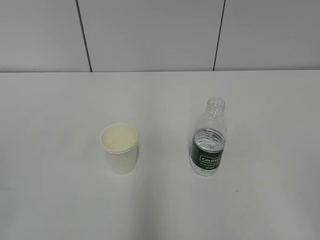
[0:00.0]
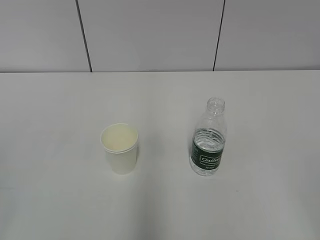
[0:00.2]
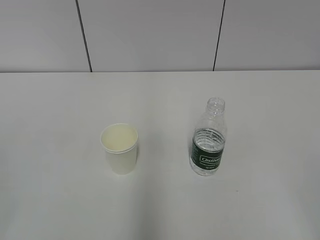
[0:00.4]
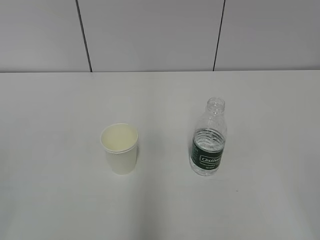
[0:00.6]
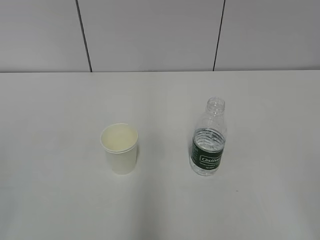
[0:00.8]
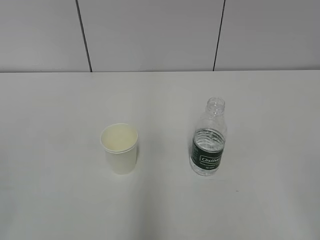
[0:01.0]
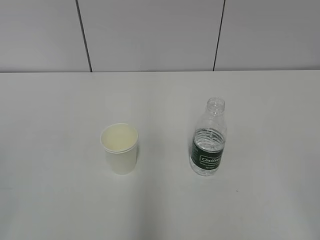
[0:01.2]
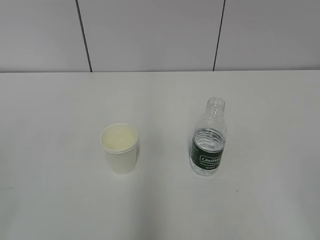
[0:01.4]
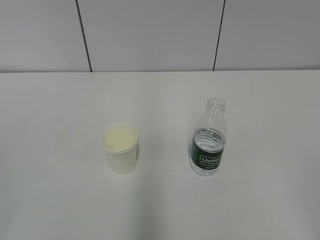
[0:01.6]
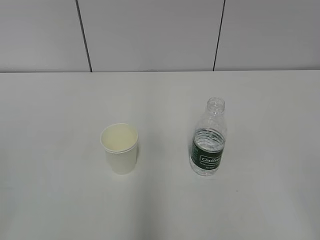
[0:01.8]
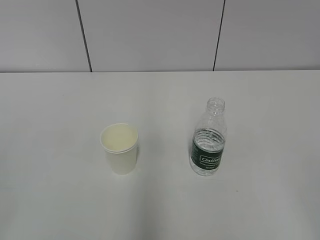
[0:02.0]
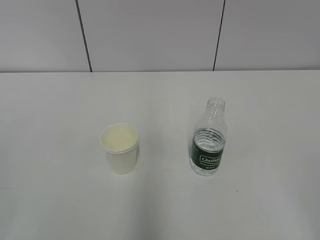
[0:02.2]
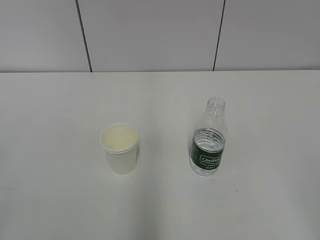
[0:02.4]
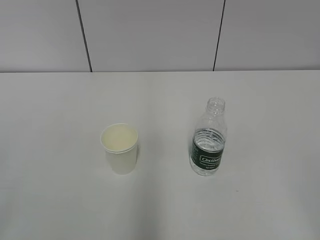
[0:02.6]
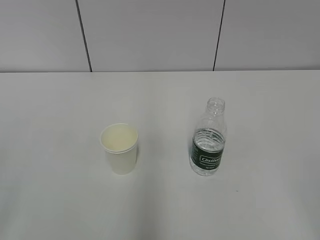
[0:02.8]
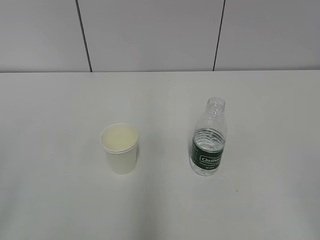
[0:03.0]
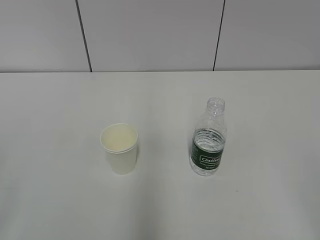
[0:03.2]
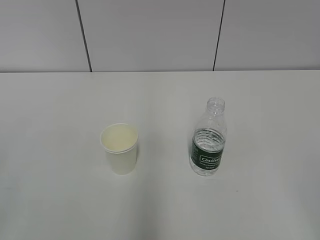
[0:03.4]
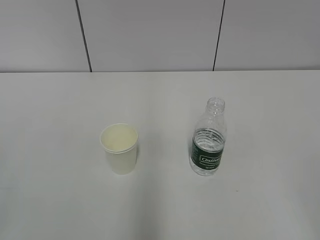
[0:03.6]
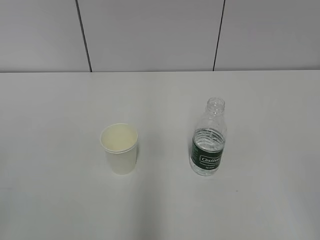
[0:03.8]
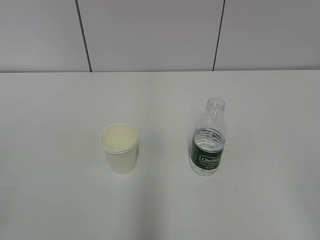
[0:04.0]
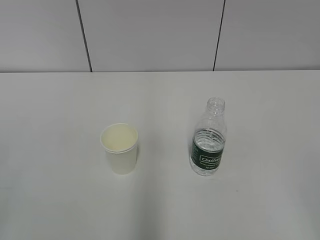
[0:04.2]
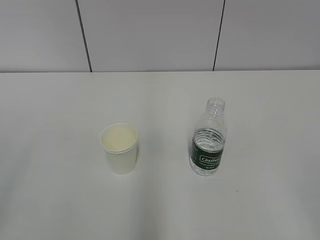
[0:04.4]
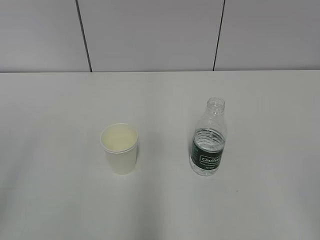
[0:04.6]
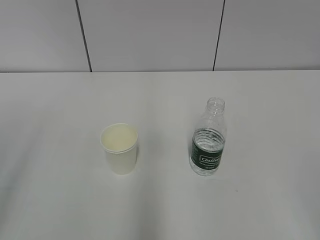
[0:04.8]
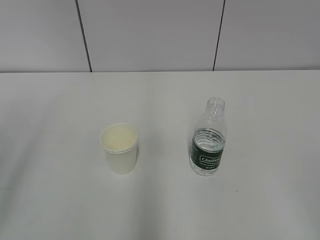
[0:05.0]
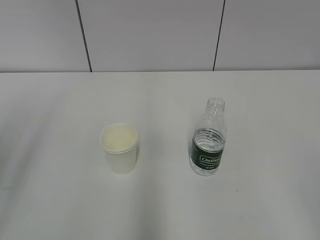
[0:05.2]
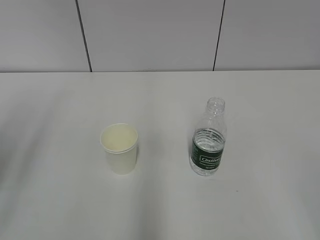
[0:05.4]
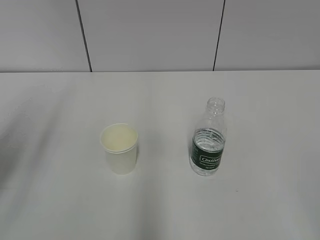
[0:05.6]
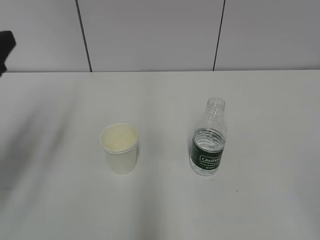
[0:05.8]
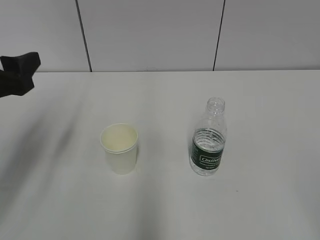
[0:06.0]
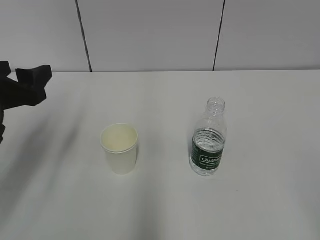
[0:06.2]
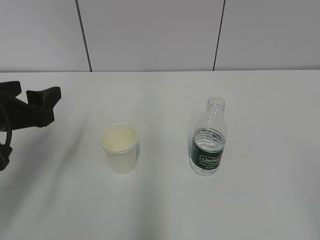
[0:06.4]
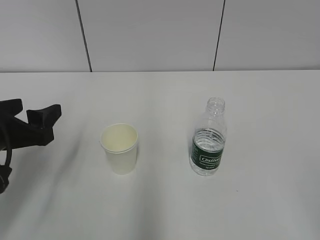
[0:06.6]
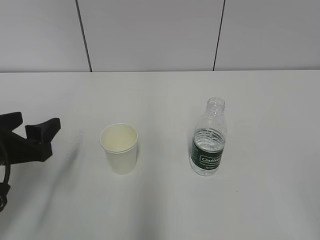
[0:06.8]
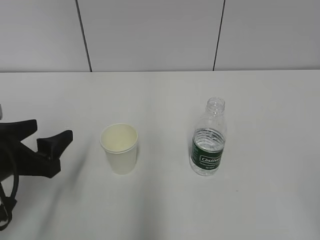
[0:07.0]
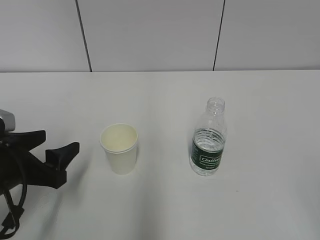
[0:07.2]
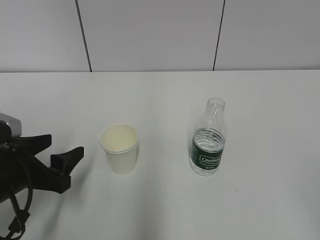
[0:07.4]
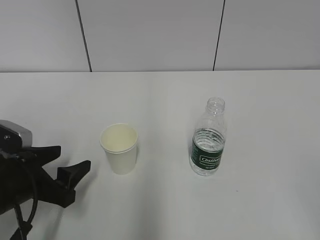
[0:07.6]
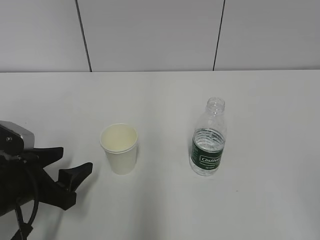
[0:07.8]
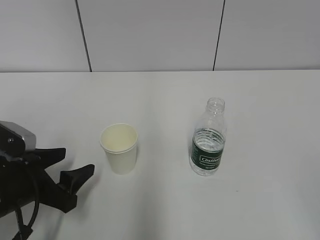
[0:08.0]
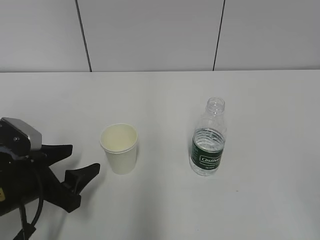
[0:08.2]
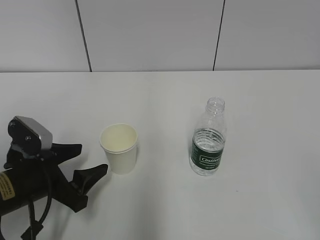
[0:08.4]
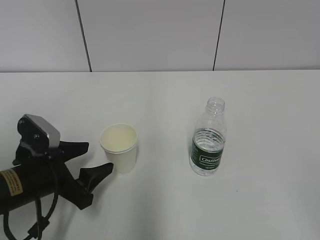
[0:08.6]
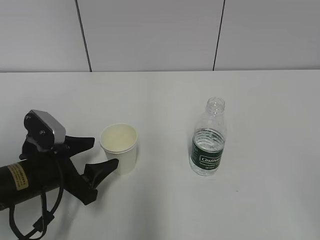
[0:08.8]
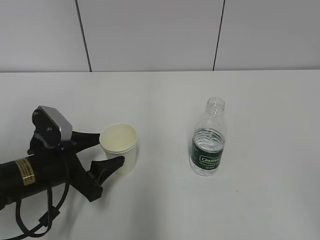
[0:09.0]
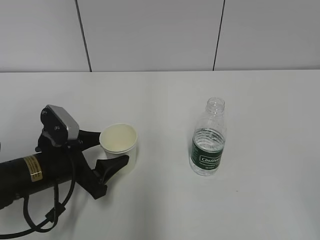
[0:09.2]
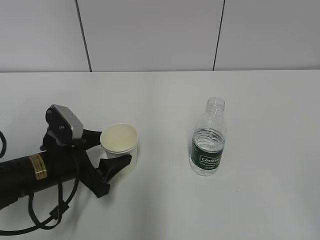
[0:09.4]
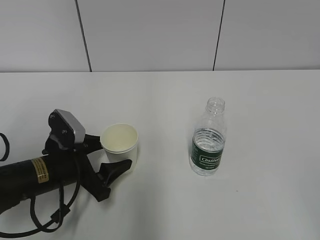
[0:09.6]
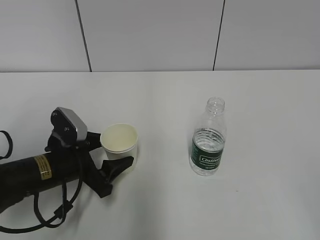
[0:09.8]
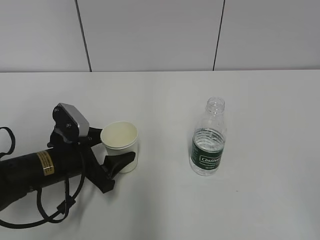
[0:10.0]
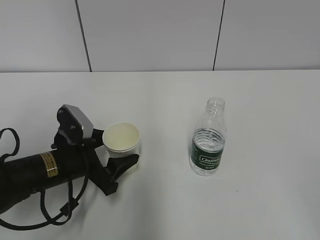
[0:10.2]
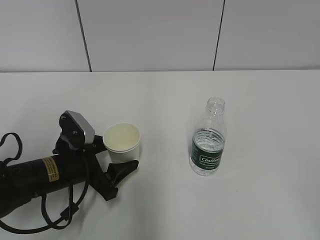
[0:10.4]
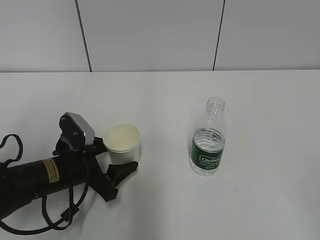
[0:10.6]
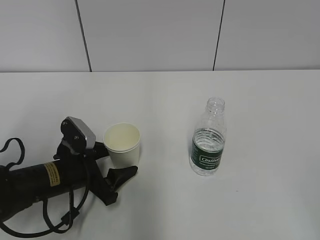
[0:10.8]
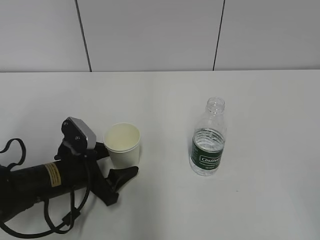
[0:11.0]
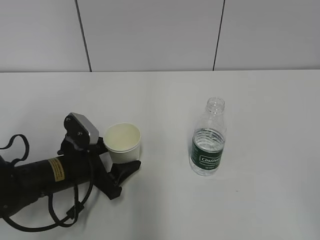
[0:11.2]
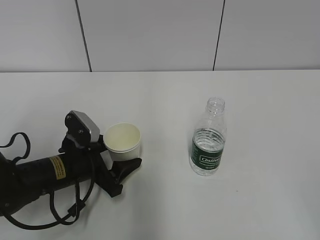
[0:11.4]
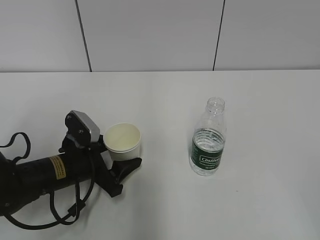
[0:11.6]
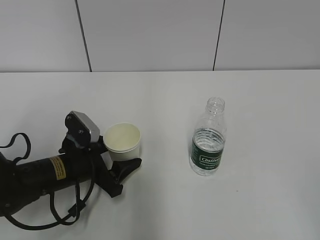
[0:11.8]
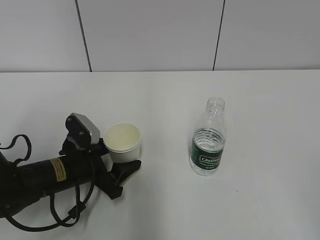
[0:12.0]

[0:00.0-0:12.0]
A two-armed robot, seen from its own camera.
Step, 0:00.0 to 0:10.6: Grab the paper cup with the left hand.
0:04.4 to 0:06.0: The left gripper goes about 25 cm forward.
0:06.0 to 0:07.6: The left gripper heads downward, covering approximately 15 cm.
0:07.6 to 0:09.0: The left gripper moves some 5 cm.
0:09.0 to 0:12.0: The grippers stay close to where they were, moving slightly.

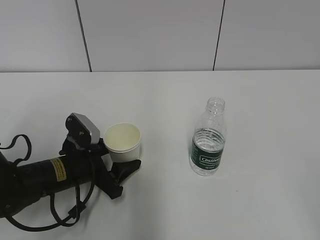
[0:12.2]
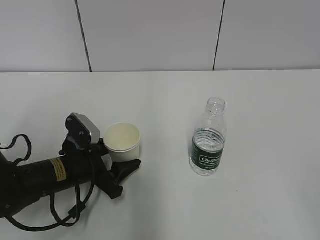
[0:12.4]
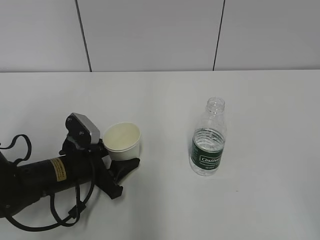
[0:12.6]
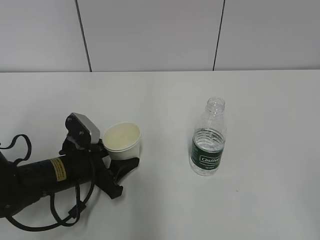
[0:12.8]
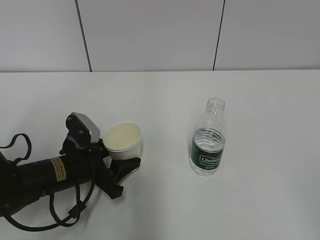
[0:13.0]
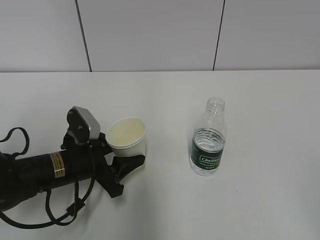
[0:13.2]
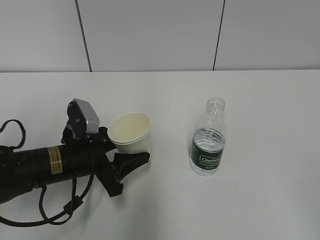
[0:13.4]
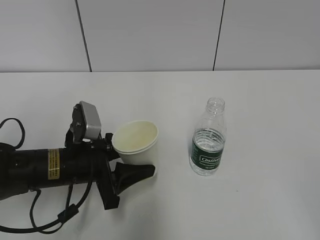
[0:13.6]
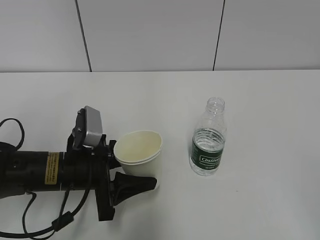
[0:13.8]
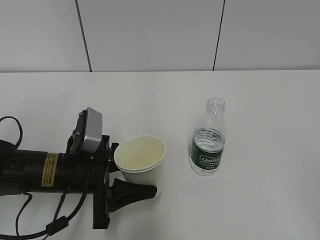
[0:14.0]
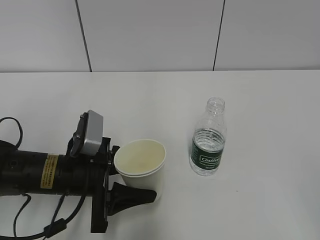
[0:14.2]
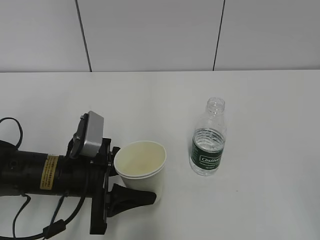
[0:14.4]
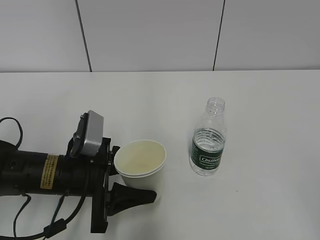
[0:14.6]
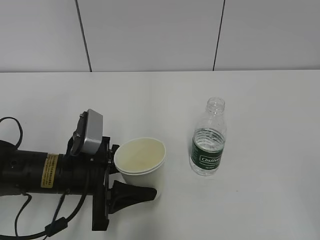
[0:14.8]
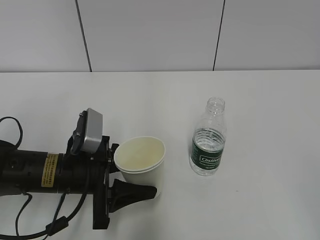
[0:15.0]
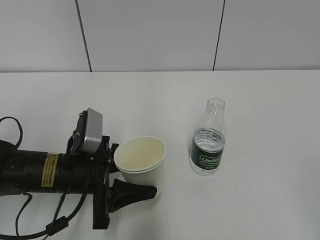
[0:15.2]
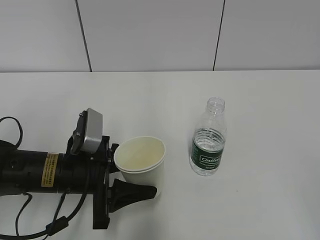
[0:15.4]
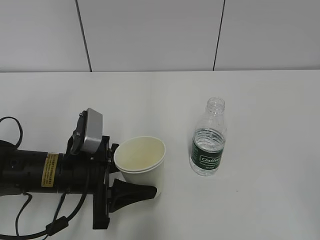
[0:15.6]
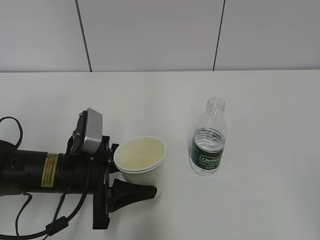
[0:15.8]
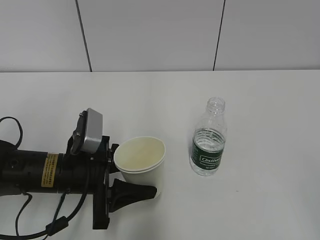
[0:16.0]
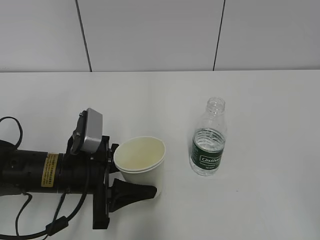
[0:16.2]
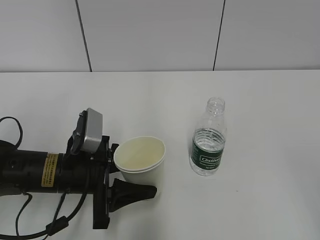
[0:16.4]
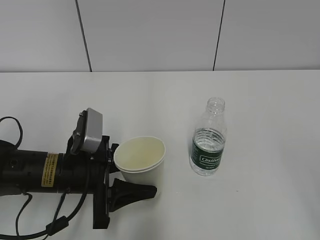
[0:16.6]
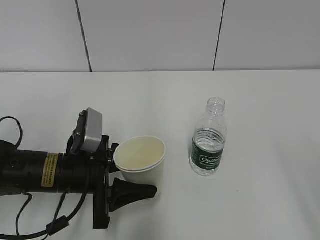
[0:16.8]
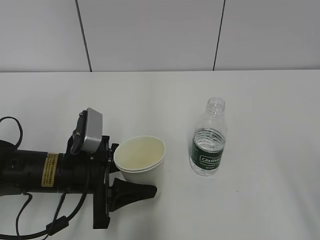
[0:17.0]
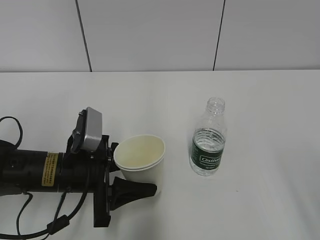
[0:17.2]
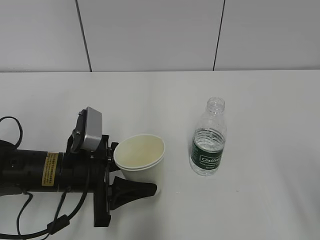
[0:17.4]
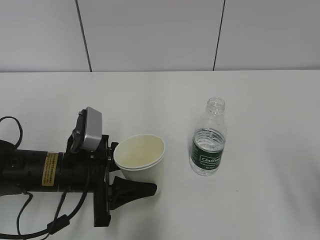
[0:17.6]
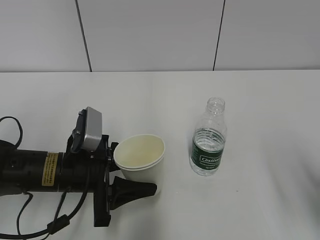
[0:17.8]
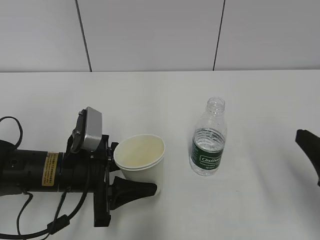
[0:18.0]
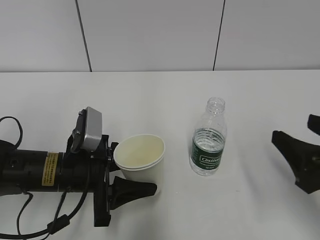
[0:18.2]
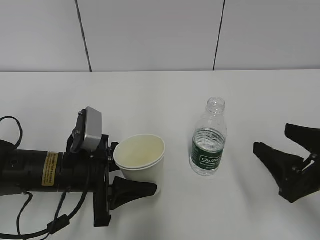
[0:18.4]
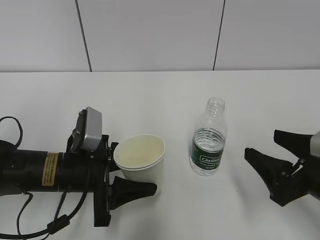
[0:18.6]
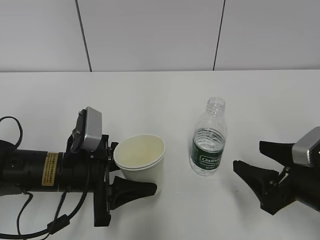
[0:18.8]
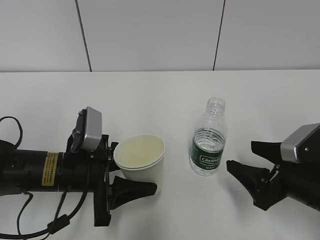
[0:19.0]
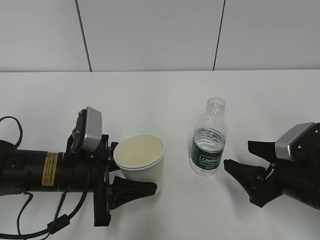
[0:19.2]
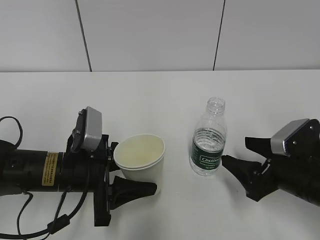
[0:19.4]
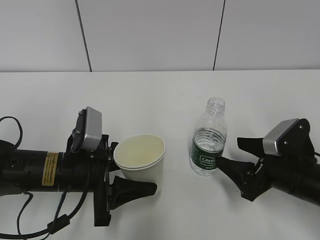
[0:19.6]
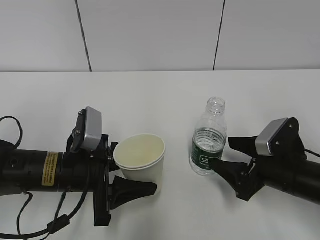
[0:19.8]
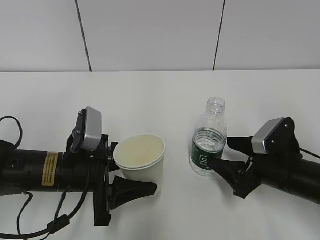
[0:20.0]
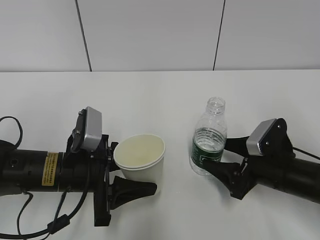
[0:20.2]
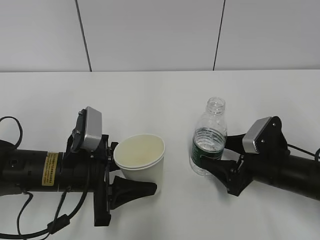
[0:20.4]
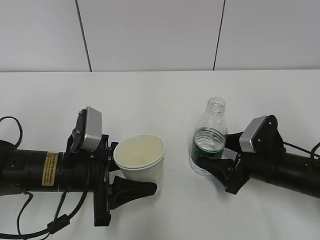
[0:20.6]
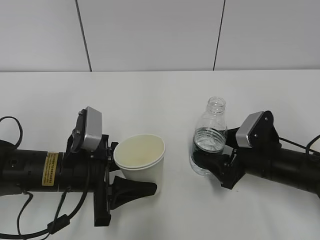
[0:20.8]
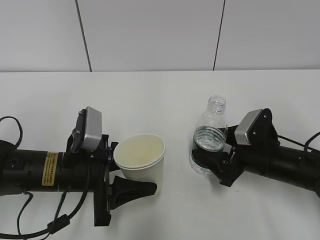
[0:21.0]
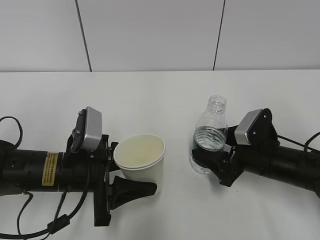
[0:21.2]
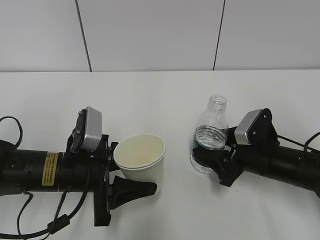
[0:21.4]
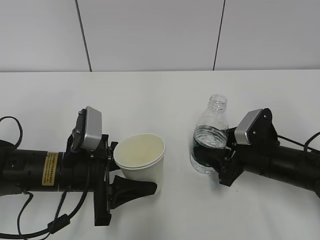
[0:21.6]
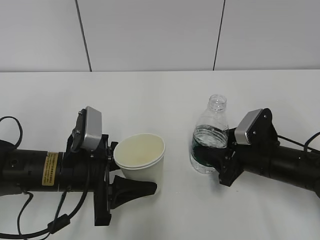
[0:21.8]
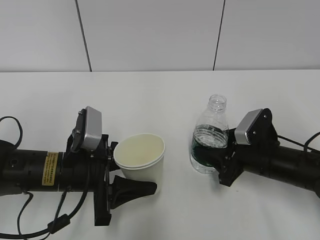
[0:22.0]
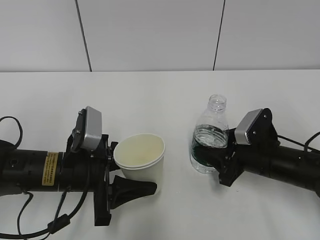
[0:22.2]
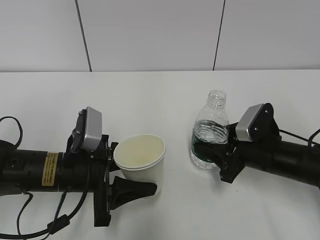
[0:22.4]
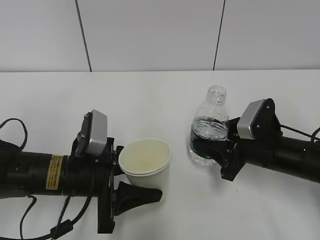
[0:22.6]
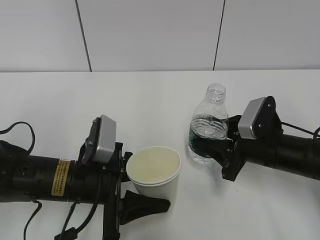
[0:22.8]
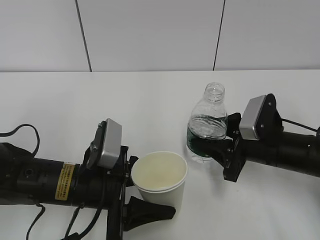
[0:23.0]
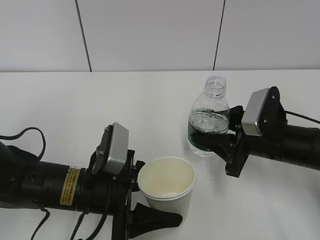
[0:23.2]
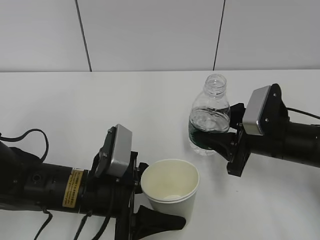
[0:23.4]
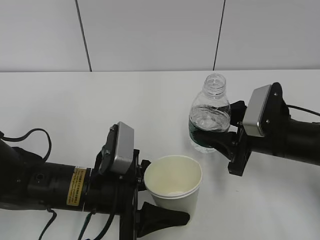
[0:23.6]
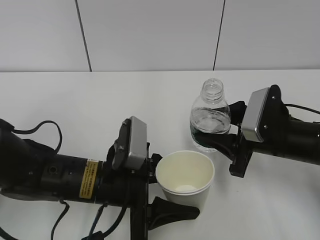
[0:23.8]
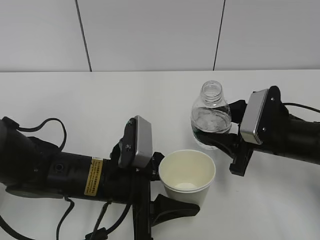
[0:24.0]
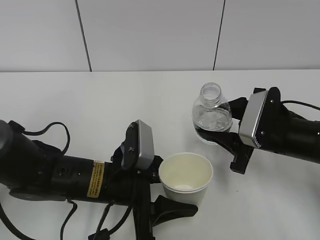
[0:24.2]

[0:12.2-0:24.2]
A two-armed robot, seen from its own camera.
Step, 0:12.2 to 0:18.4: Grab the water bottle with the right hand.
Step, 0:18.6 to 0:23.4: Lift the paper cup with the left hand.
0:12.2 to 0:13.8: The left gripper moves some 5 cm.
0:13.8 to 0:15.2: There are only small adjustments of the grippers.
0:16.6 to 0:18.2: The right gripper goes approximately 20 cm forward and downward.
0:18.2 to 0:19.8: The right gripper moves downward and forward, about 15 cm.
0:19.8 to 0:21.2: The right gripper ends up some 5 cm from where it was.
0:21.2 to 0:22.6: The right gripper closes its fingers.
0:22.6 to 0:24.2: The left gripper goes approximately 5 cm to the right.
